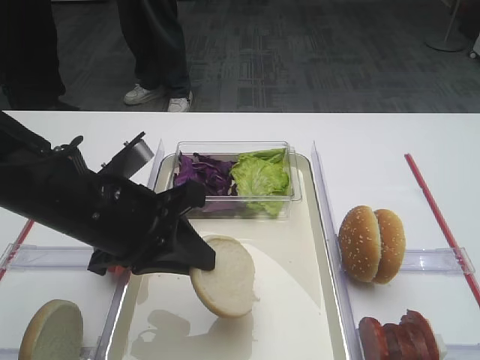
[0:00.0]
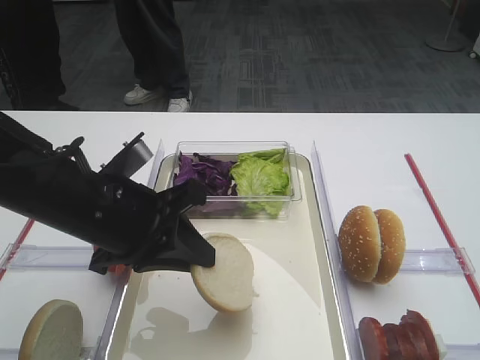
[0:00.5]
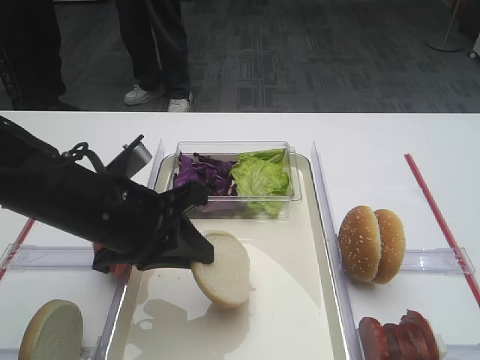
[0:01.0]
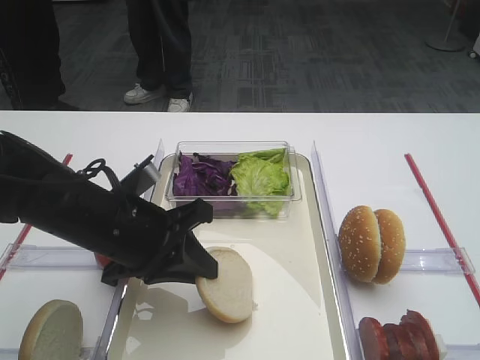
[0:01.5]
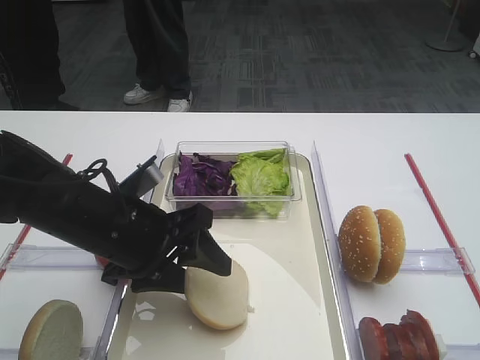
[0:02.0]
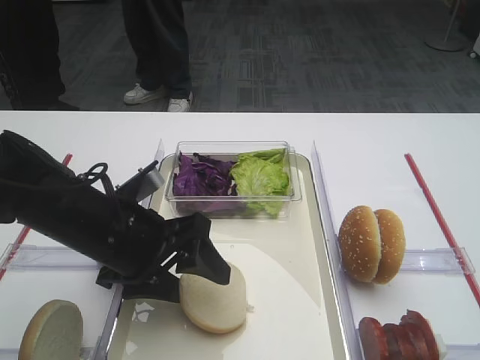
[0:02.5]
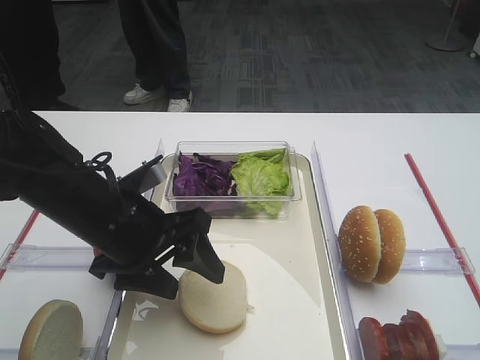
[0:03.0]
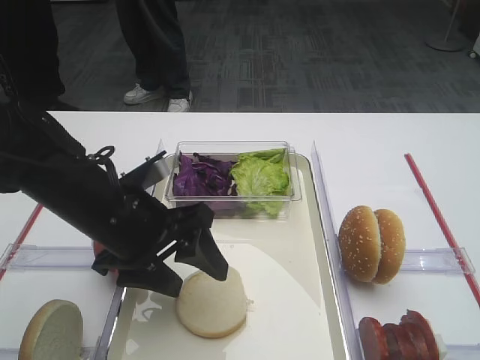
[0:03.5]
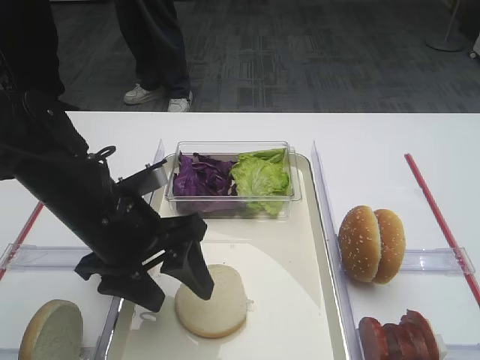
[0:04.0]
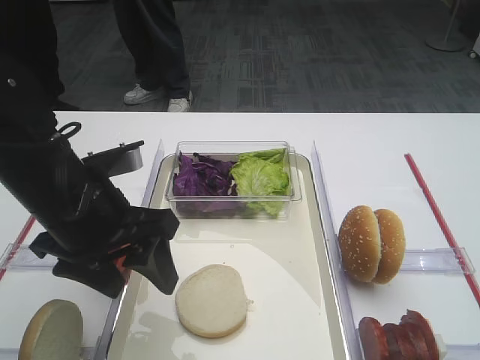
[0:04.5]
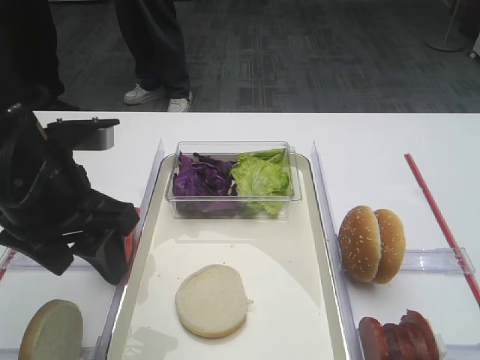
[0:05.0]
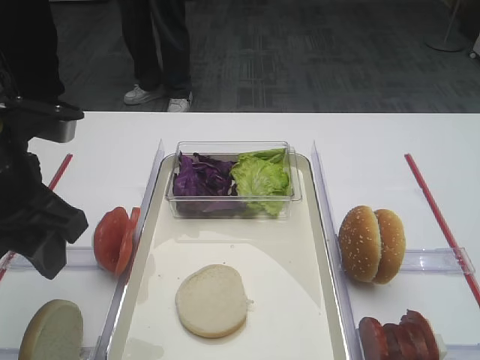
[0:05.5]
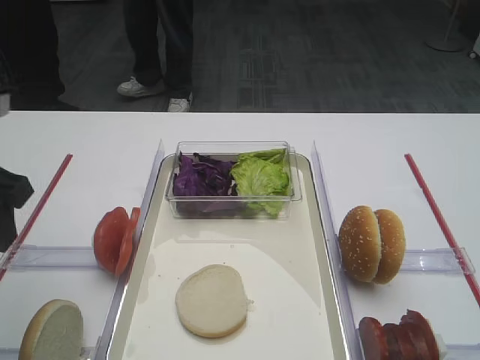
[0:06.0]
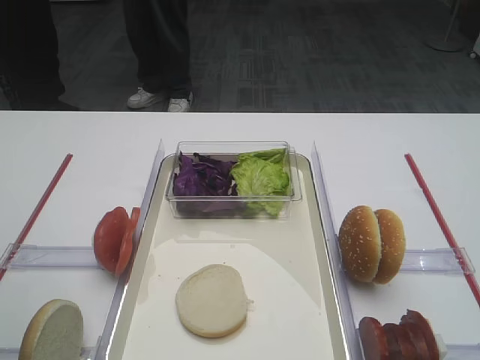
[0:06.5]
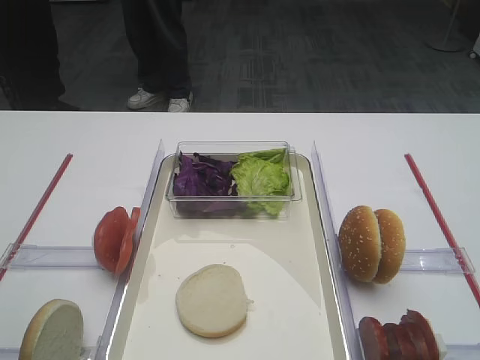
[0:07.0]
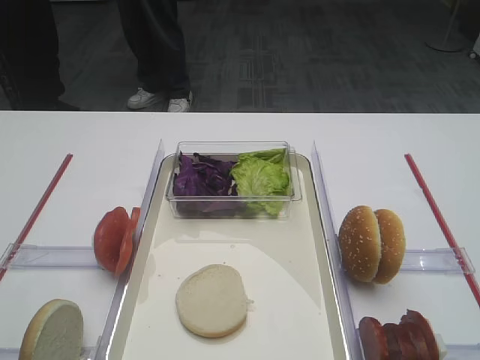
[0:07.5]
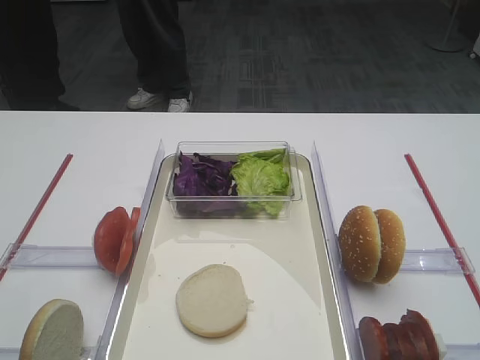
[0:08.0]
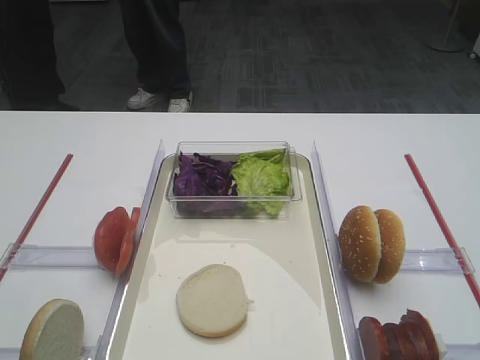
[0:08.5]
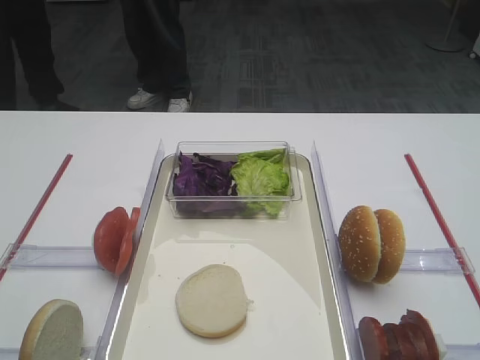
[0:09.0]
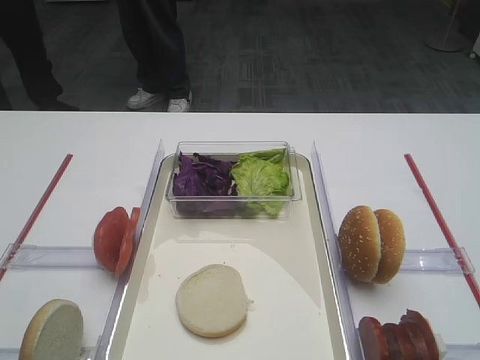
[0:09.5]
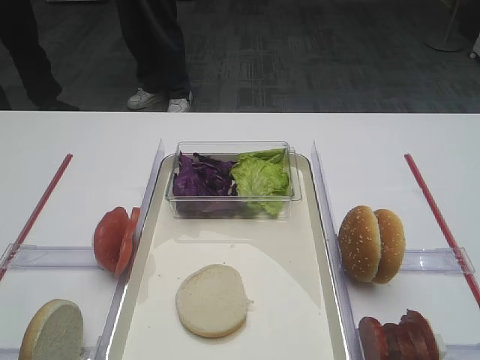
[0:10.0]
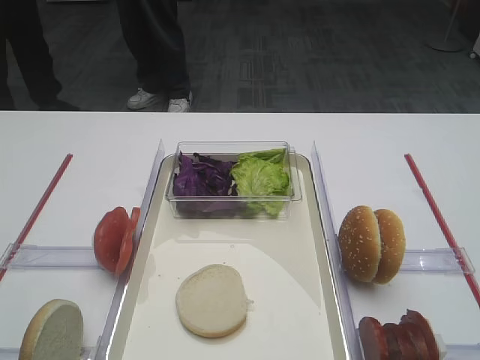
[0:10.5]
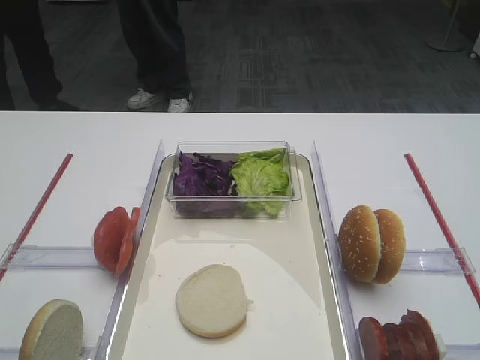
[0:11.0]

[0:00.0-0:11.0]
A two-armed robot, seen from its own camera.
Step, 0:00.0 to 0:03.5: Place the bread slice on the tray with the left gripper.
0:00.0 to 0:02.0: The left gripper opens.
0:02.0 to 0:03.5: The grippers make only small movements.
0:03.5 to 0:05.5: The left gripper is displaced upward and to the left by roughly 10 cm.
0:05.5 to 0:07.5: The left gripper heads backward and to the left, covering some 20 cm.
0:09.0 to 0:11.0: Both grippers stay about where they are.

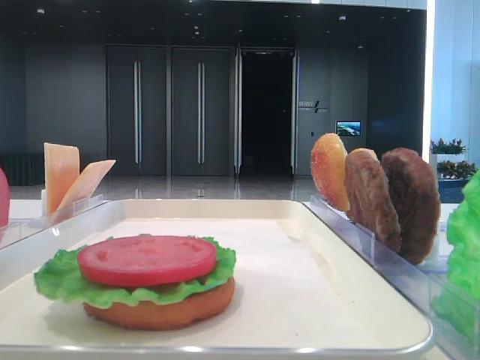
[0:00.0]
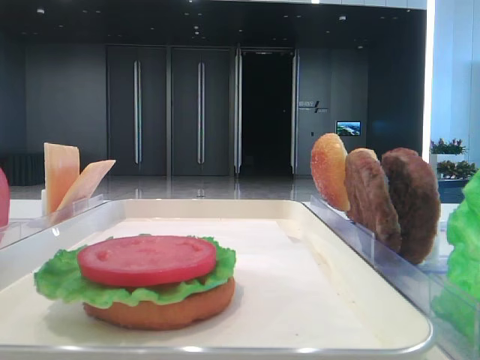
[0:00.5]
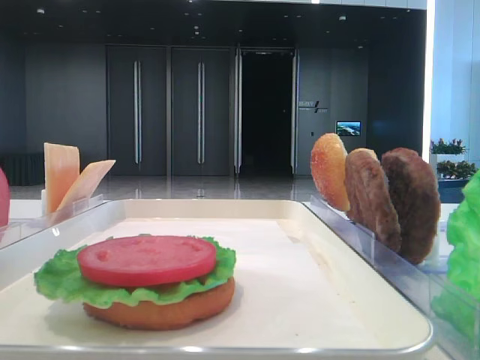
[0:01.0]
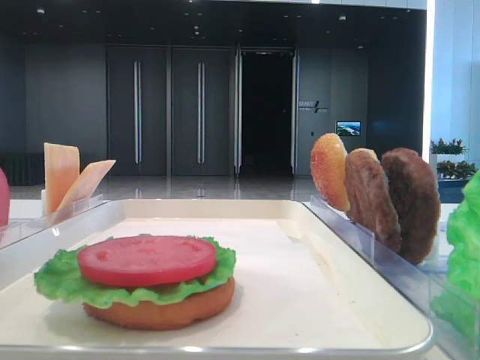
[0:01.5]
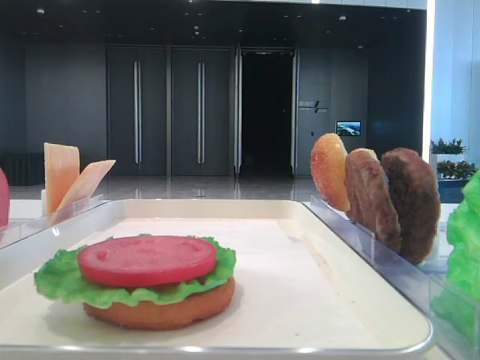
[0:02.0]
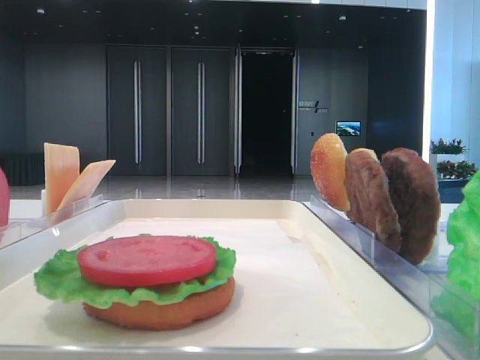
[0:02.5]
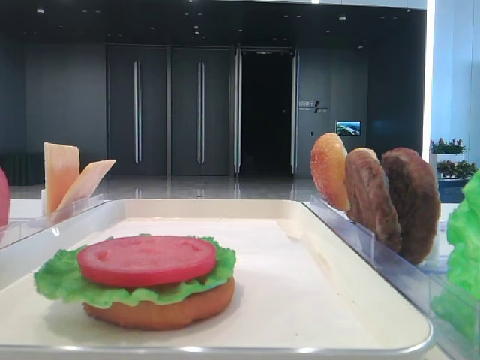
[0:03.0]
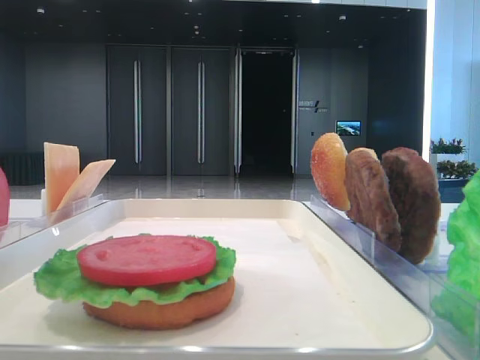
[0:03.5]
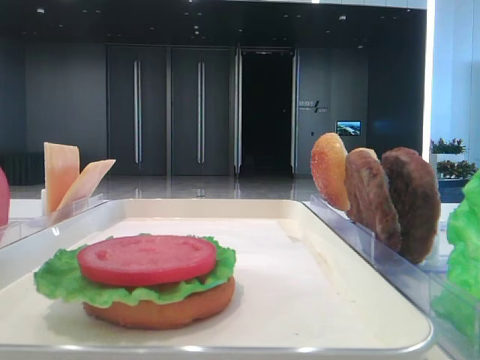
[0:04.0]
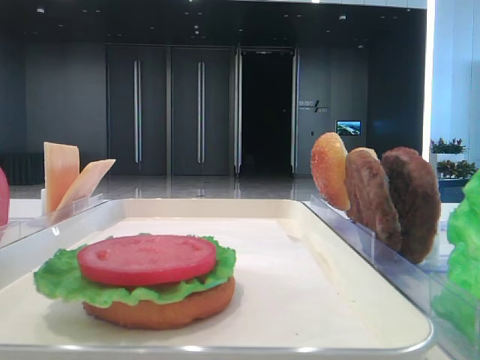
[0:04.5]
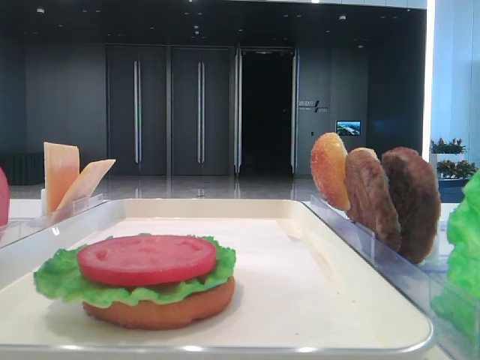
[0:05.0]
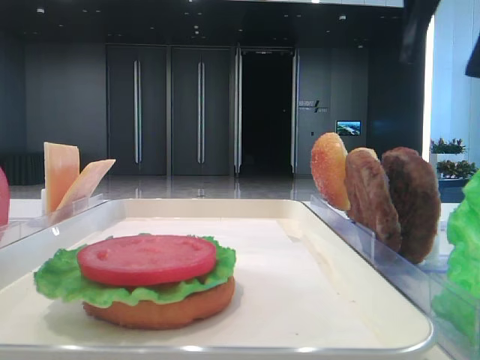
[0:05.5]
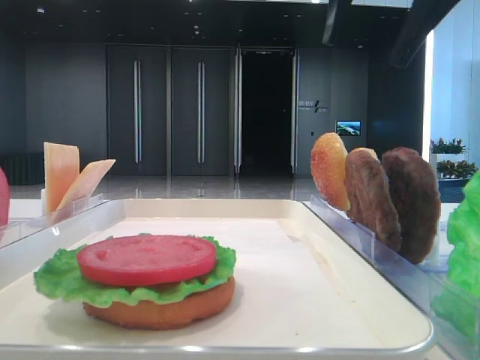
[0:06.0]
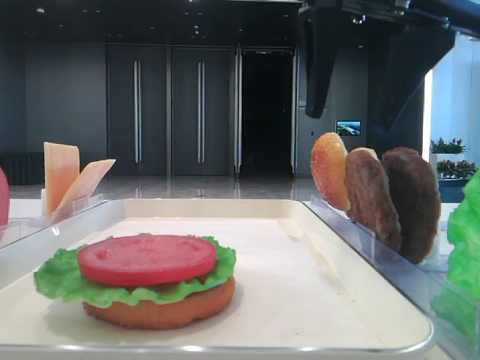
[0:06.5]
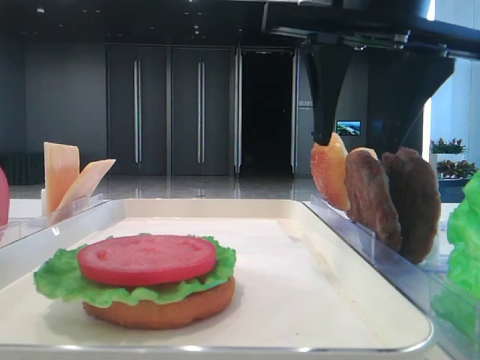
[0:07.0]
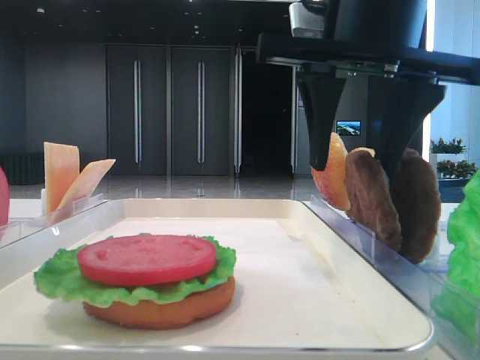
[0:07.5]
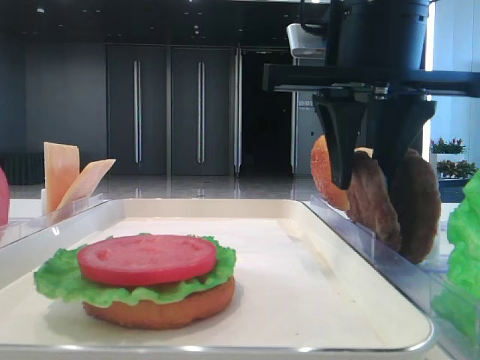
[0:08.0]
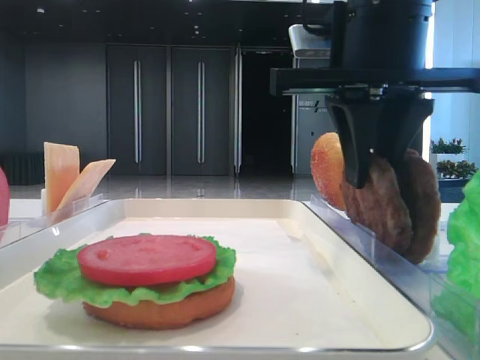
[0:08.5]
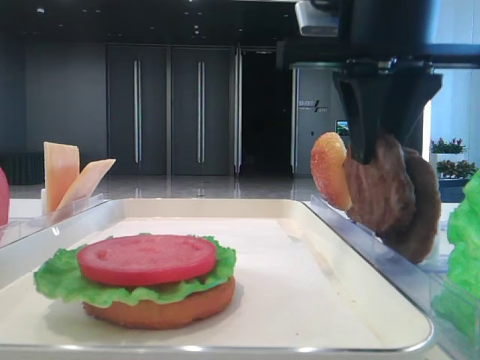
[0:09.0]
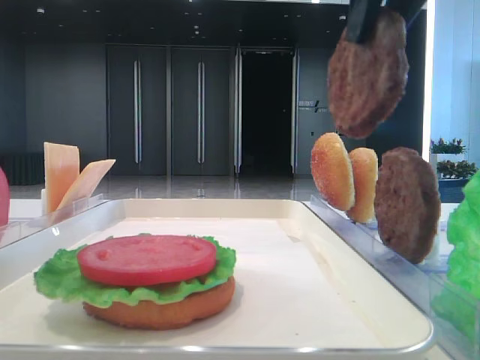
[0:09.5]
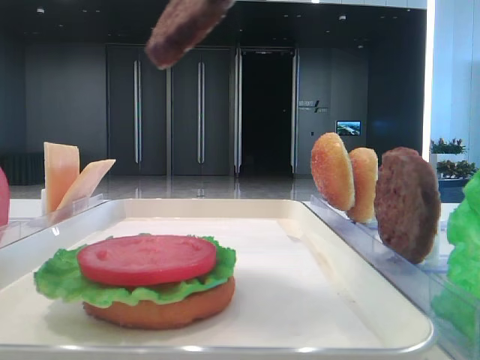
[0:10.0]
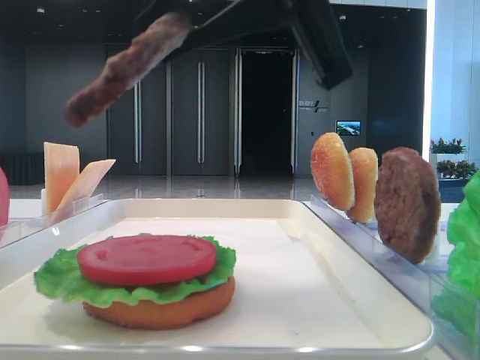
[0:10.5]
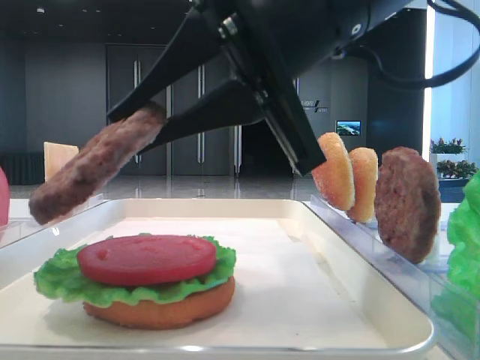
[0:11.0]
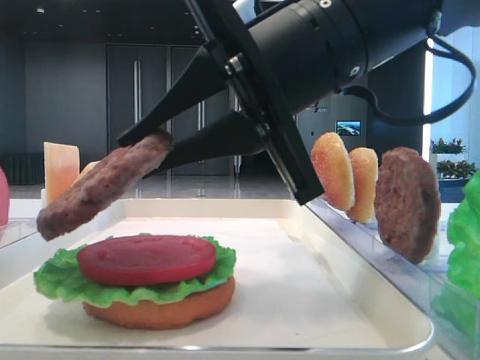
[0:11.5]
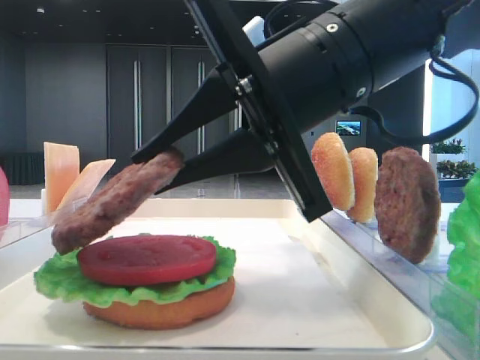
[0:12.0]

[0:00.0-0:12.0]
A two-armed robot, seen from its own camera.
Step, 0:00.0 to 0:08.5: Grab the patty with the right hand.
0:04.0 to 0:06.0: The right gripper moves to the left, approximately 15 cm.
0:06.0 to 0:08.0: The right gripper heads downward, covering roughly 10 cm, and closes its fingers.
0:08.0 to 0:10.0: The right gripper moves upward and backward, roughly 10 cm.
0:10.0 to 0:12.0: The right gripper is displaced downward by approximately 15 cm.

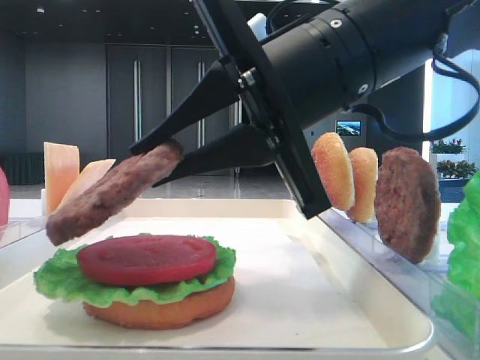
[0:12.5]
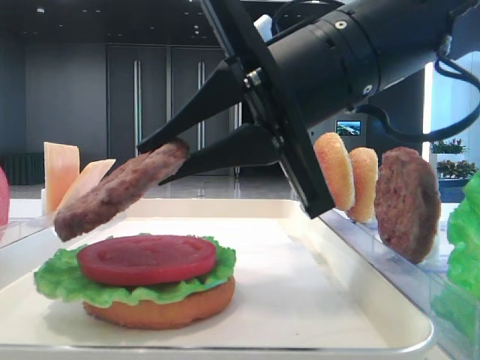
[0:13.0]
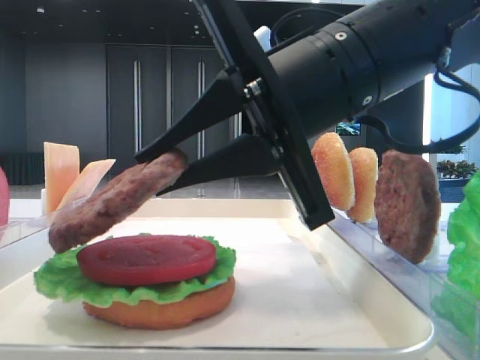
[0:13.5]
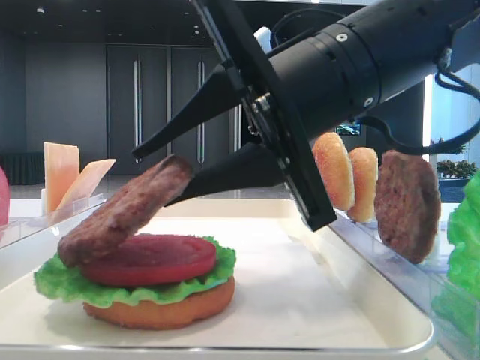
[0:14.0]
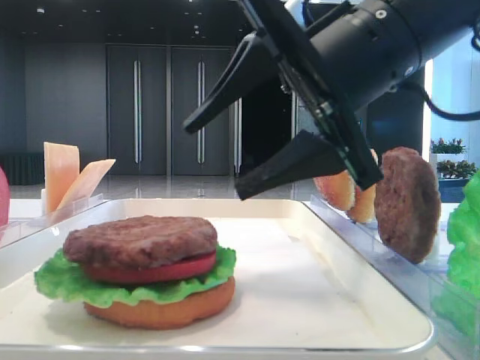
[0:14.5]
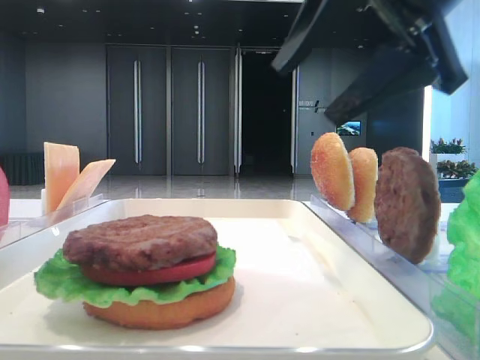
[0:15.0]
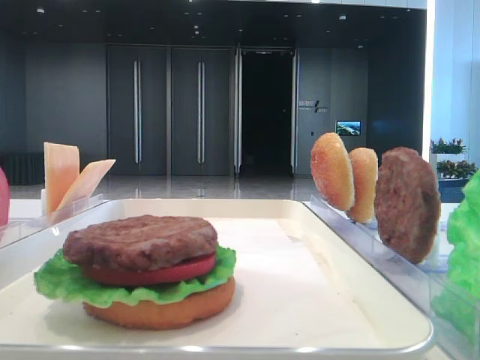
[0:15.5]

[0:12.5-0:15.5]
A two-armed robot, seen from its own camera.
0:12.5 to 0:14.0: The right gripper opens its fingers.
0:14.0 to 0:15.5: The right gripper travels to the right and upward by approximately 25 cm, and opens up.
